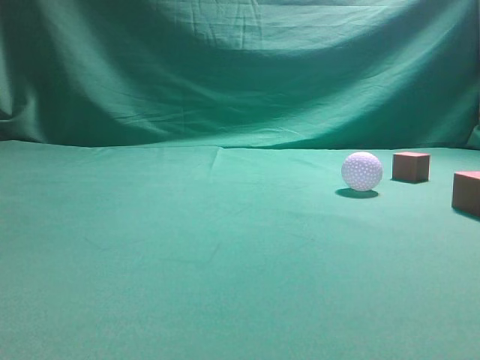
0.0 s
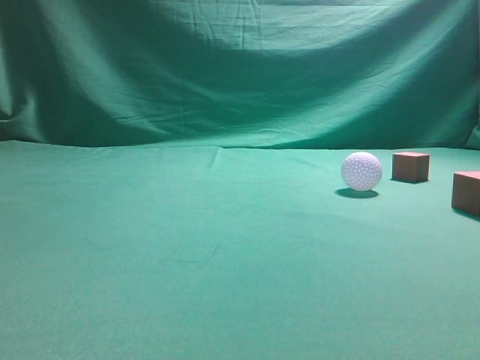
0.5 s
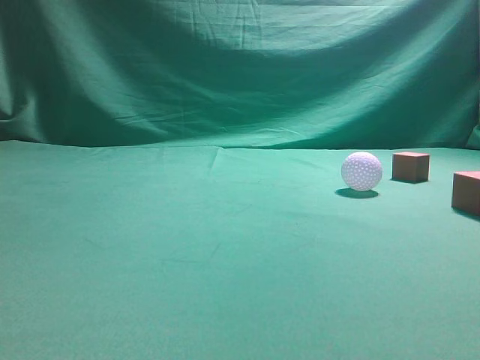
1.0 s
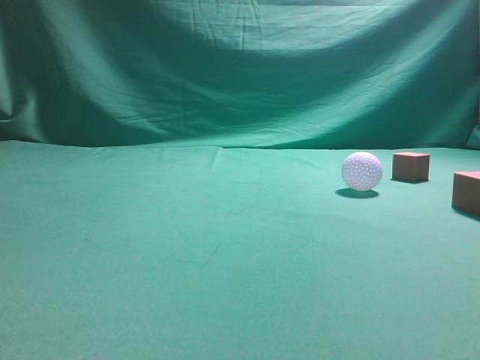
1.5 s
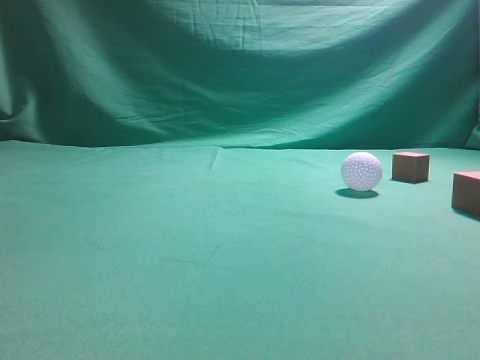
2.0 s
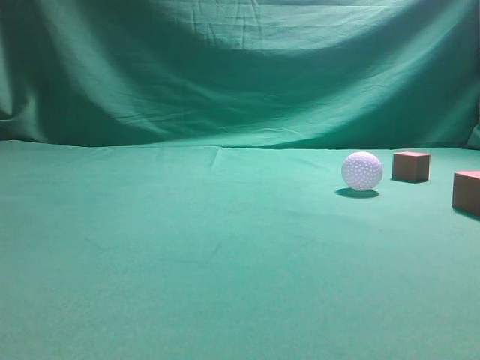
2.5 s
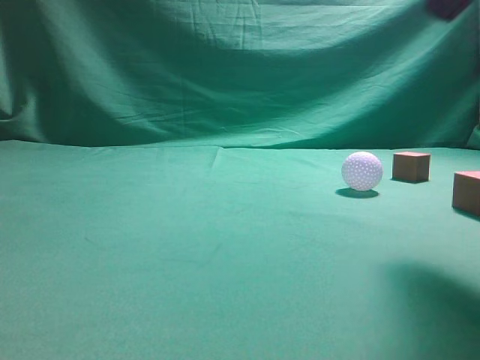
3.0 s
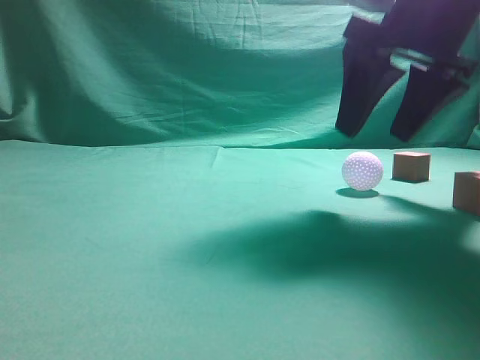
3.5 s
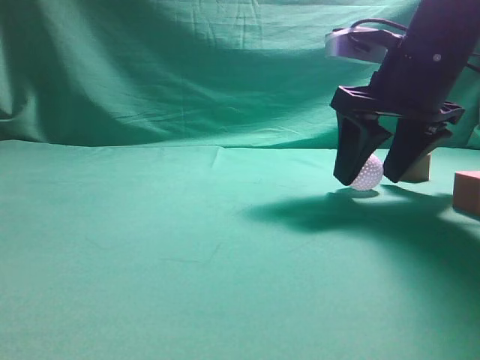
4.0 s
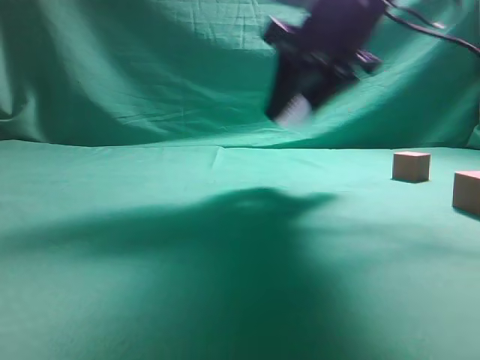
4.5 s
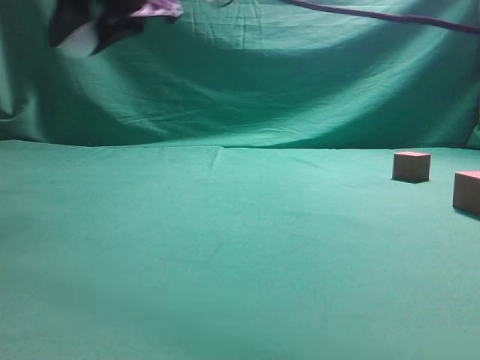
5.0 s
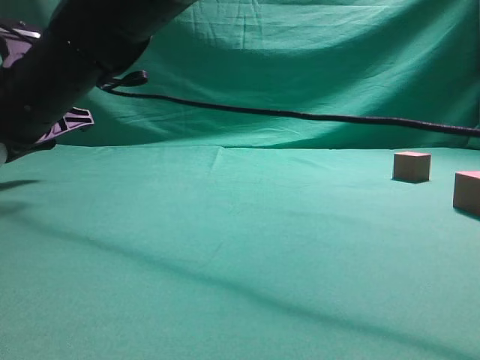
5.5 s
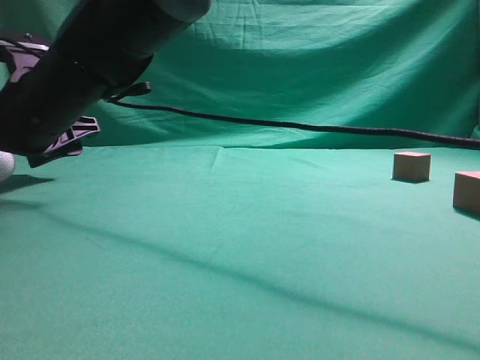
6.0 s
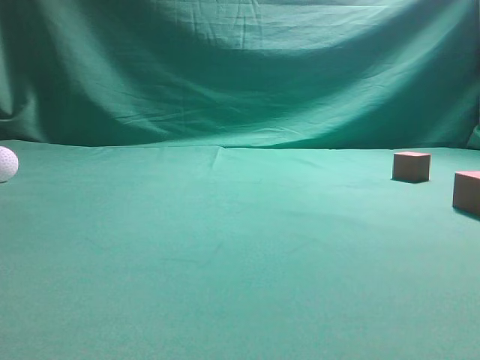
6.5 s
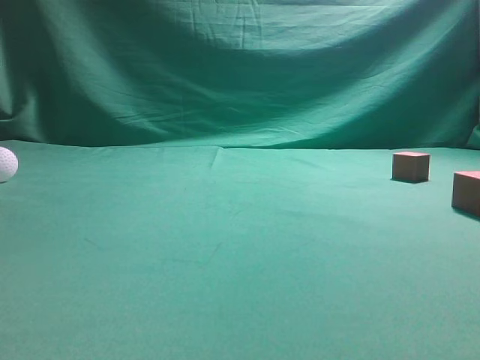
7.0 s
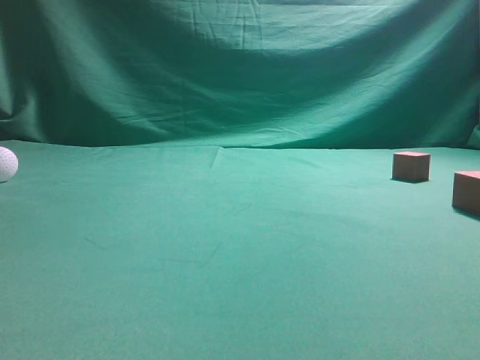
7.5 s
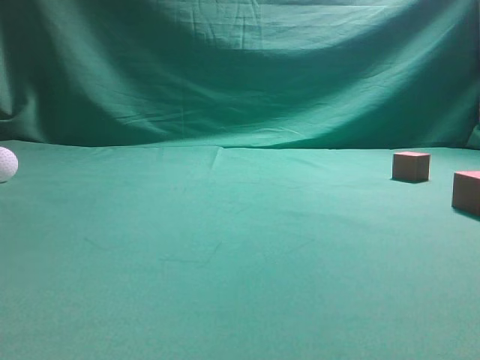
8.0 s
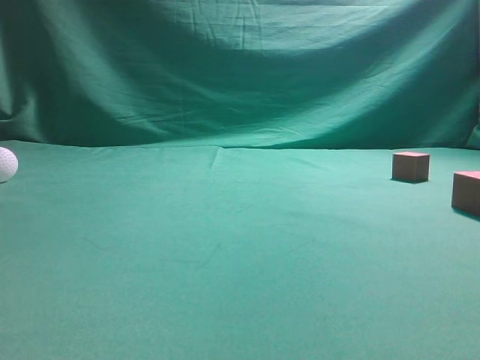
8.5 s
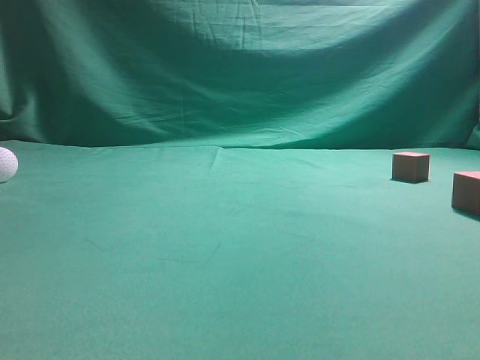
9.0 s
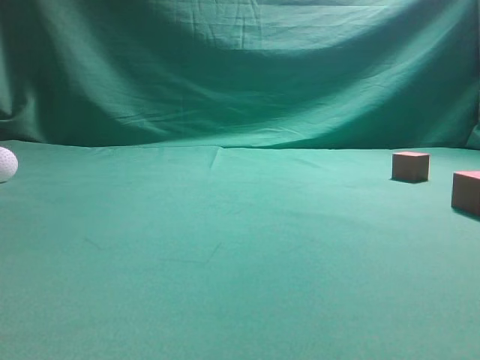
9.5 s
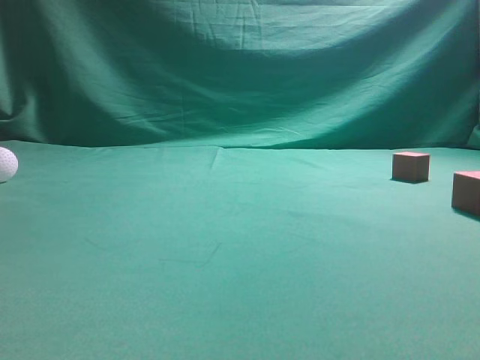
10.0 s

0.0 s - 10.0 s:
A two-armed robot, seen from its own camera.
Step, 0.0 s - 4.5 s: Grasp the spherical object on the right side.
2.0 s - 4.0 s: The right gripper shifts approximately 35 cm forward, downward and to the left, and opens.
4.0 s - 6.0 s: The right gripper moves to the left, about 35 cm.
6.0 s - 8.0 s: The right gripper travels to the right, upward and backward by about 50 cm, and closes its fingers.

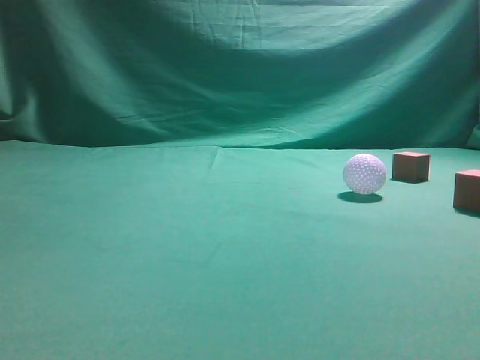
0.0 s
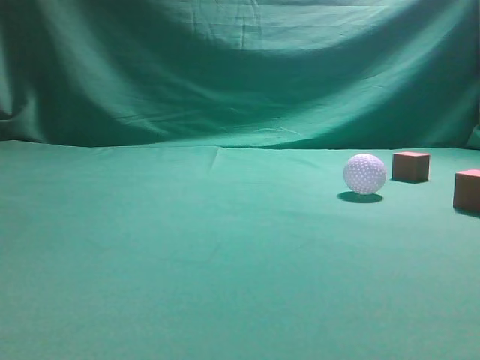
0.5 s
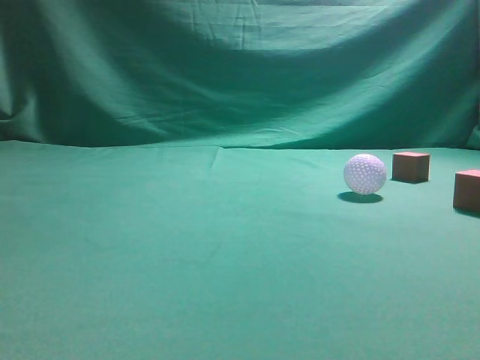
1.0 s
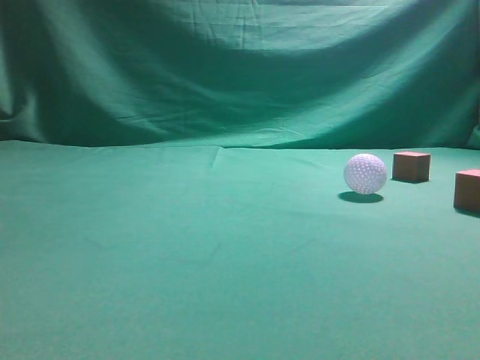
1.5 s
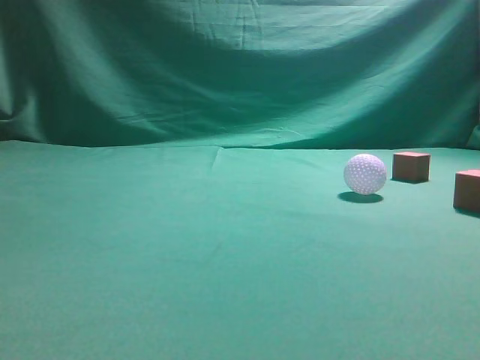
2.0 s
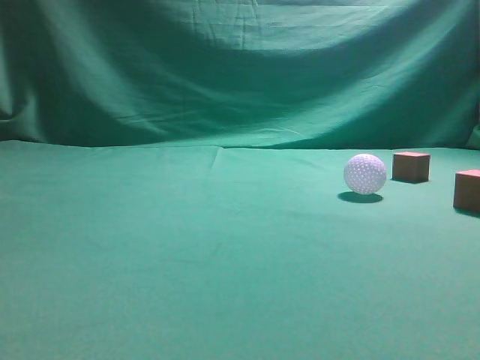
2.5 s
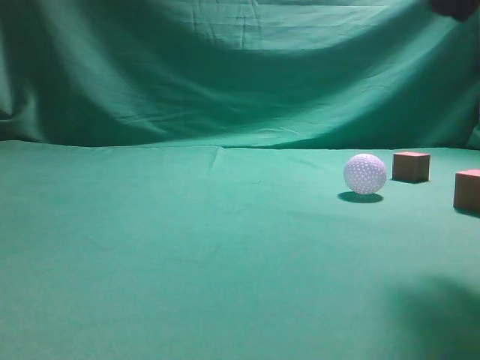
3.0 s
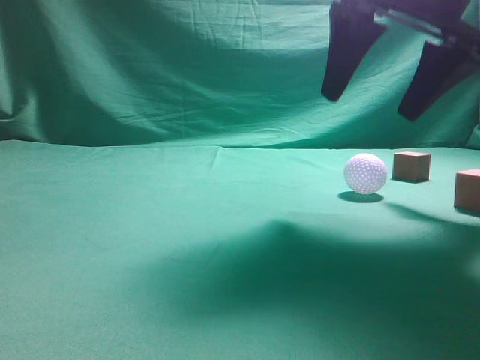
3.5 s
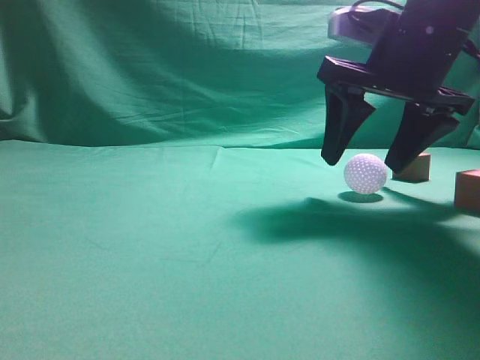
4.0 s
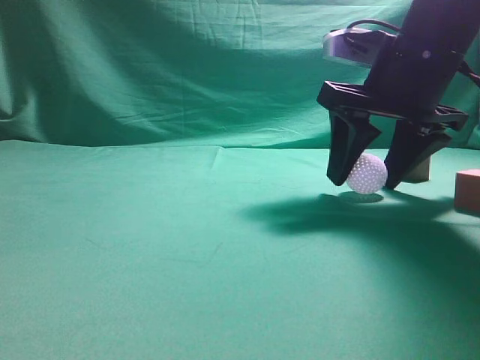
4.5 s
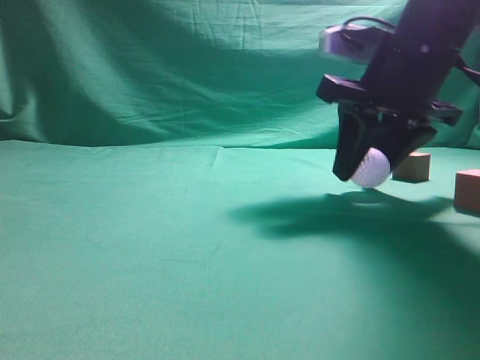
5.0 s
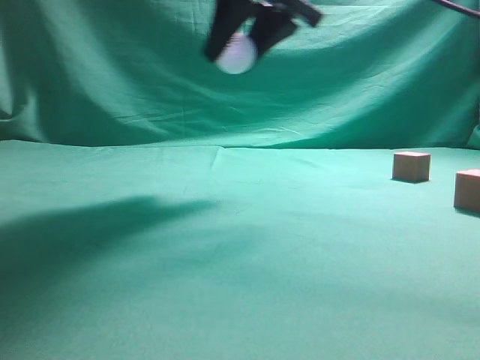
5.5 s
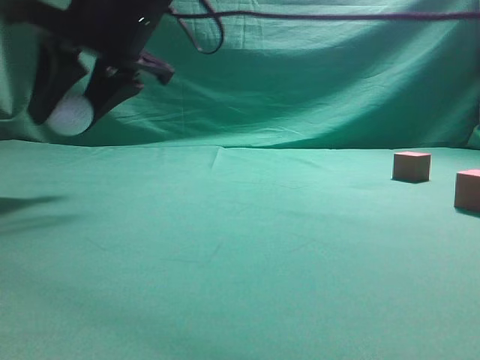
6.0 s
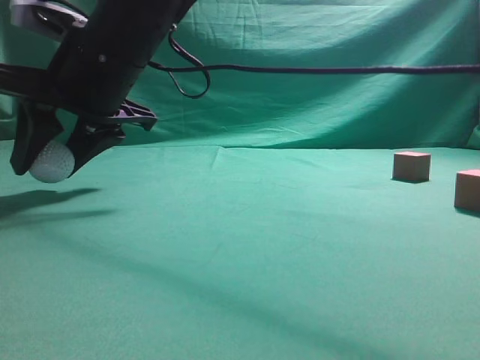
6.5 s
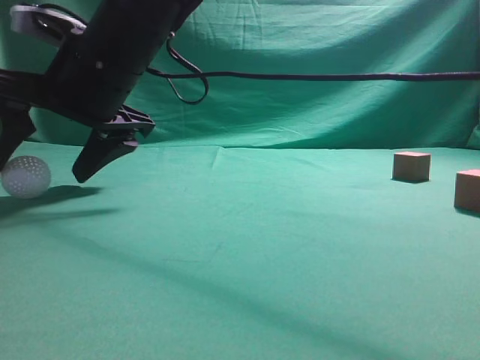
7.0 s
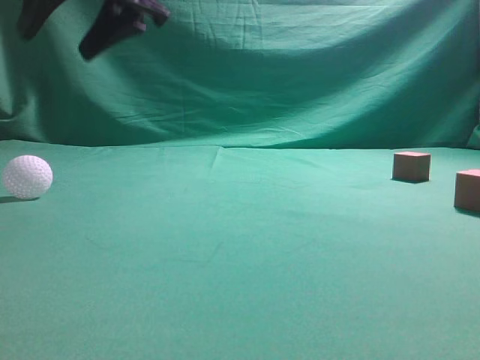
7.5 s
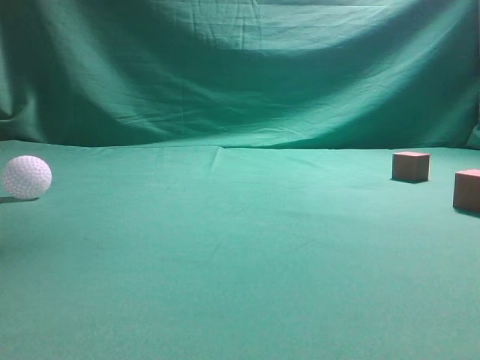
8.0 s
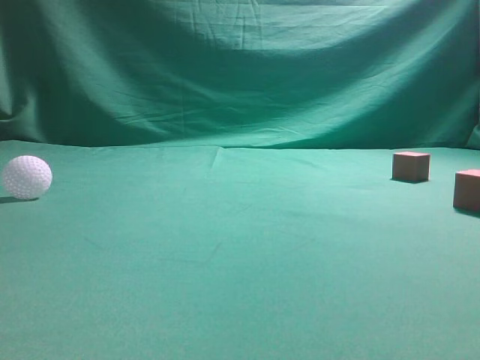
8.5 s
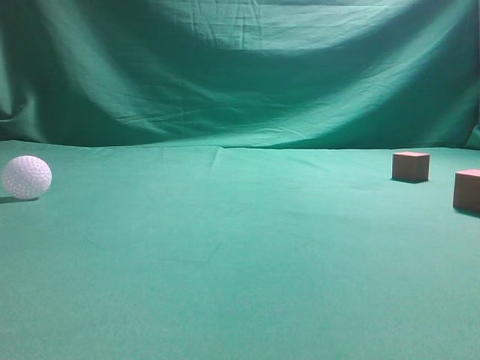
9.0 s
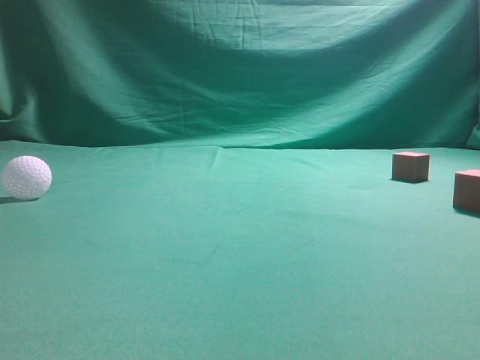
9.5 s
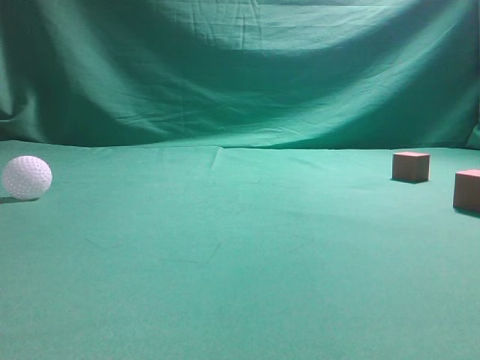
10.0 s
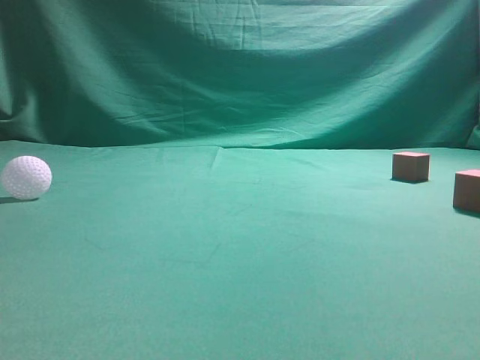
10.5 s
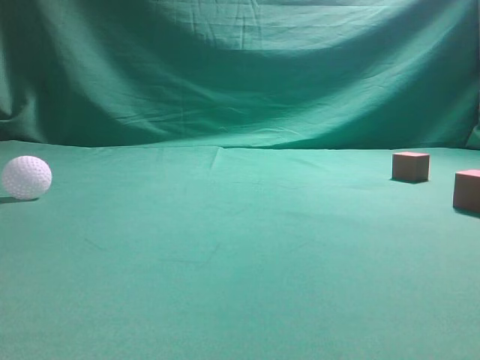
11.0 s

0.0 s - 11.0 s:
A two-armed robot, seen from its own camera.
Step, 0.0 s - 5.0 s: Grasp the spherical object on the right side.
2.0 s - 3.5 s: The right gripper travels forward and to the left by roughly 30 cm, and opens up.
3.5 s - 5.5 s: The right gripper moves to the left, about 10 cm, and closes up.
5.5 s - 7.5 s: The right gripper travels to the left by roughly 15 cm.
